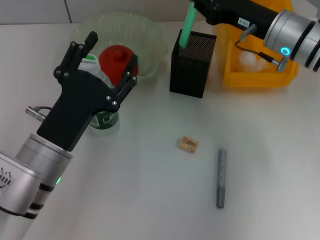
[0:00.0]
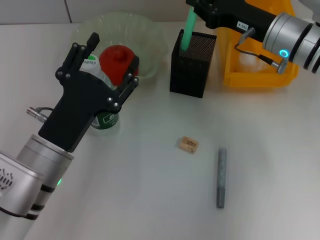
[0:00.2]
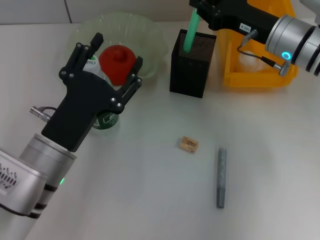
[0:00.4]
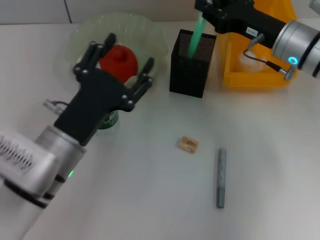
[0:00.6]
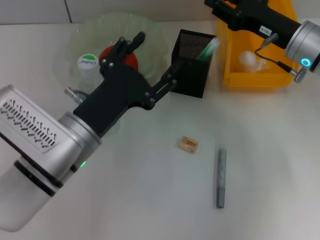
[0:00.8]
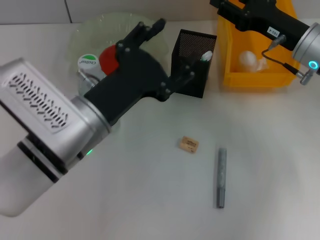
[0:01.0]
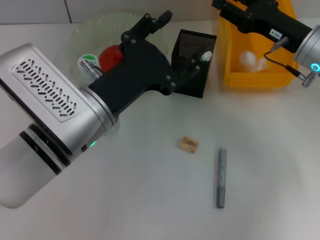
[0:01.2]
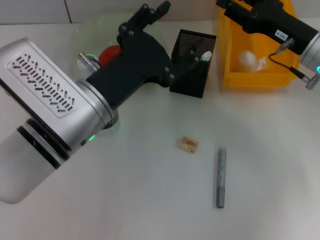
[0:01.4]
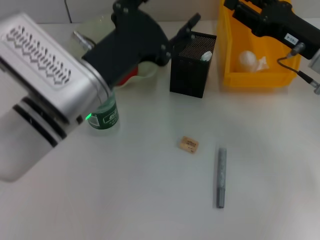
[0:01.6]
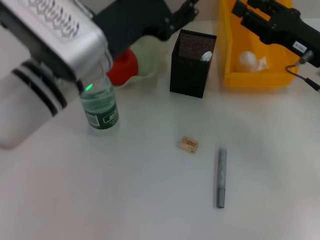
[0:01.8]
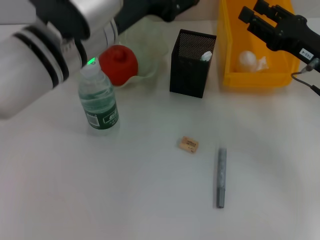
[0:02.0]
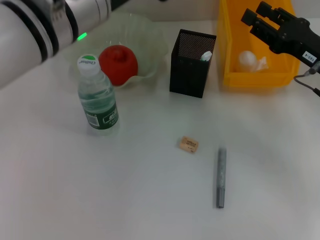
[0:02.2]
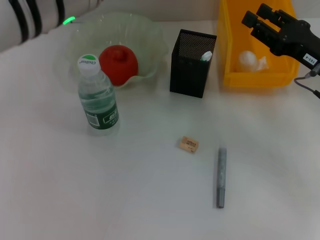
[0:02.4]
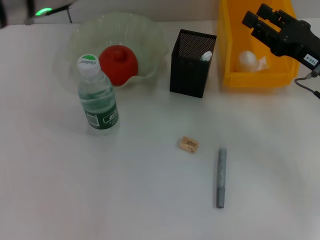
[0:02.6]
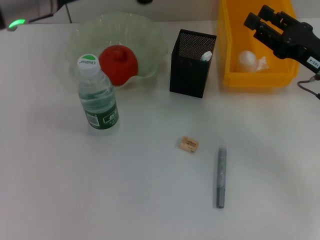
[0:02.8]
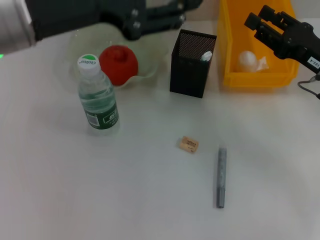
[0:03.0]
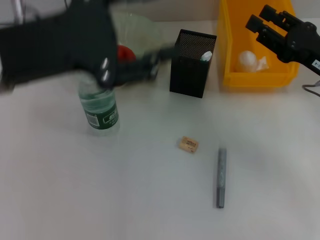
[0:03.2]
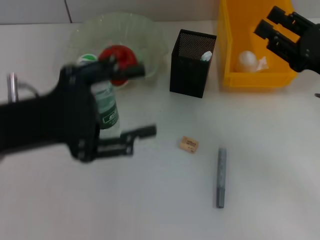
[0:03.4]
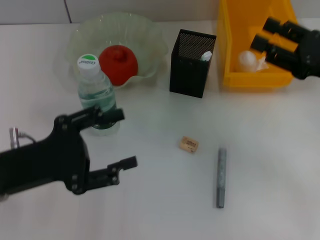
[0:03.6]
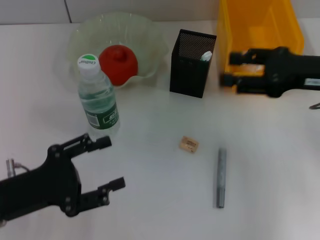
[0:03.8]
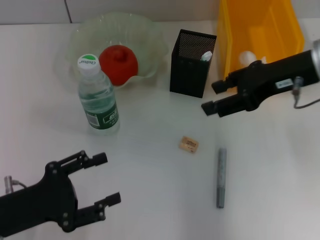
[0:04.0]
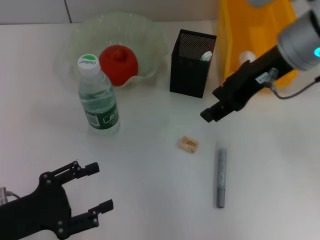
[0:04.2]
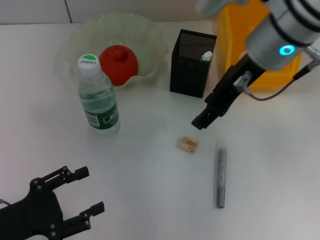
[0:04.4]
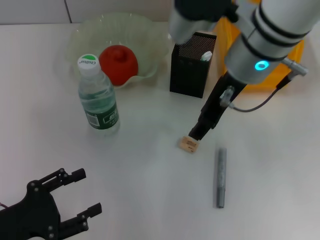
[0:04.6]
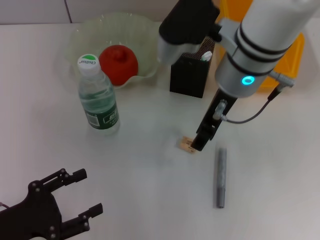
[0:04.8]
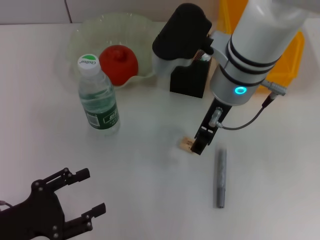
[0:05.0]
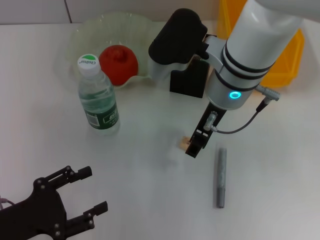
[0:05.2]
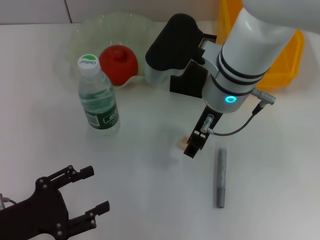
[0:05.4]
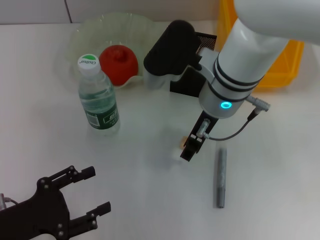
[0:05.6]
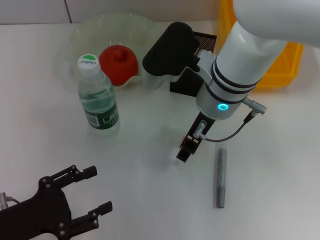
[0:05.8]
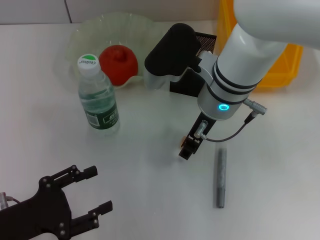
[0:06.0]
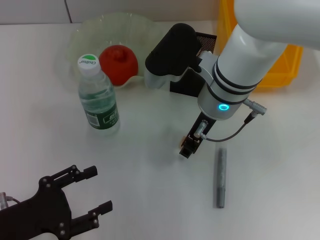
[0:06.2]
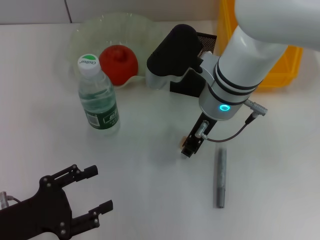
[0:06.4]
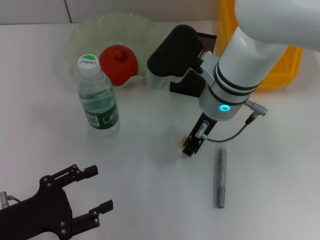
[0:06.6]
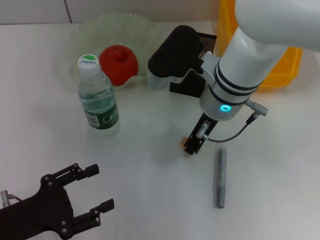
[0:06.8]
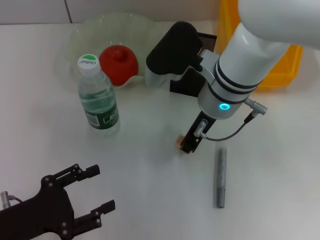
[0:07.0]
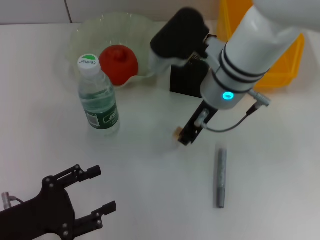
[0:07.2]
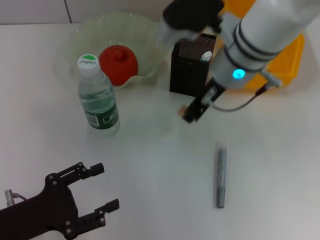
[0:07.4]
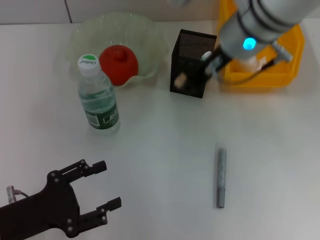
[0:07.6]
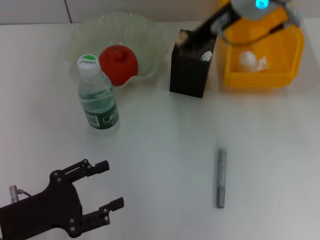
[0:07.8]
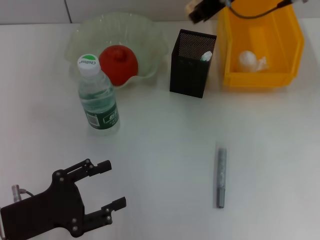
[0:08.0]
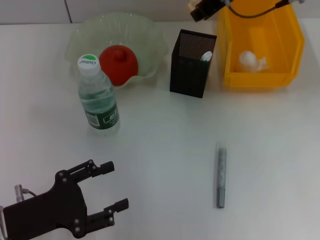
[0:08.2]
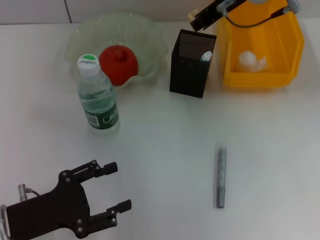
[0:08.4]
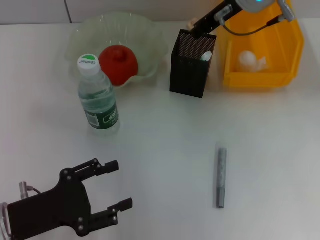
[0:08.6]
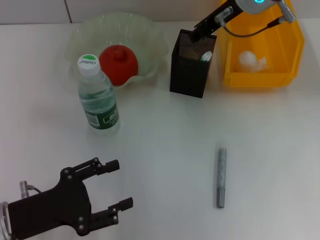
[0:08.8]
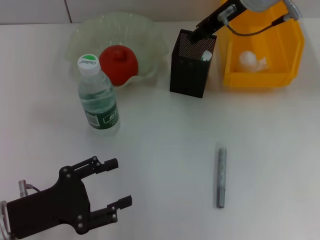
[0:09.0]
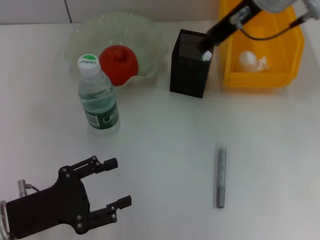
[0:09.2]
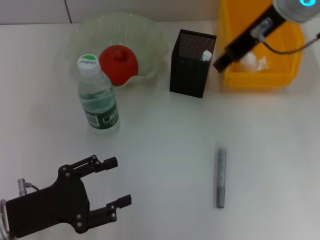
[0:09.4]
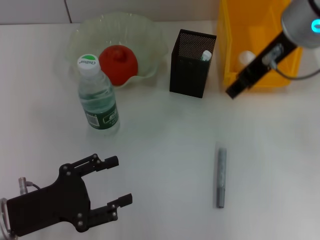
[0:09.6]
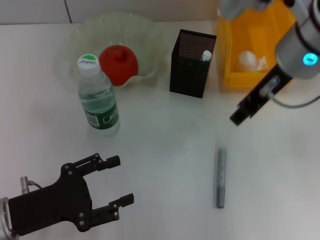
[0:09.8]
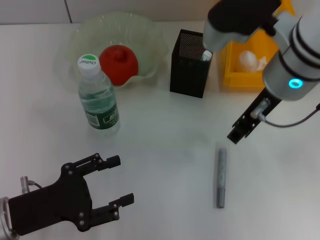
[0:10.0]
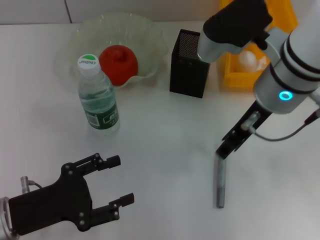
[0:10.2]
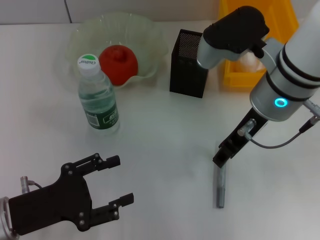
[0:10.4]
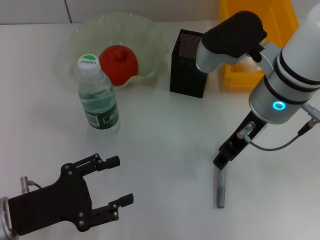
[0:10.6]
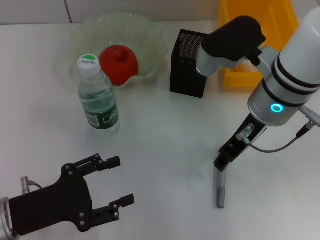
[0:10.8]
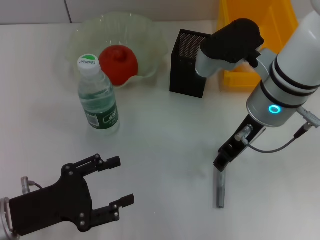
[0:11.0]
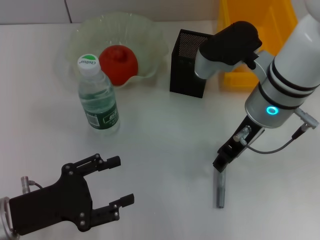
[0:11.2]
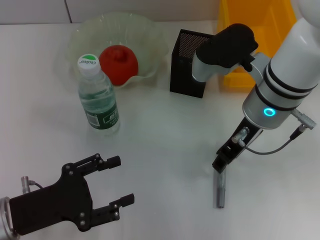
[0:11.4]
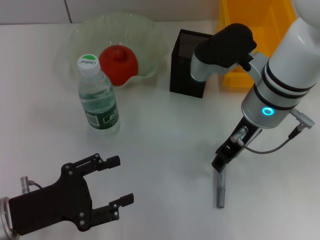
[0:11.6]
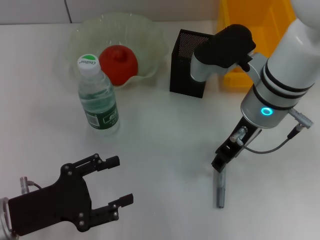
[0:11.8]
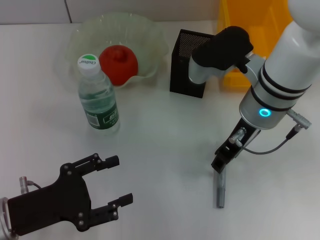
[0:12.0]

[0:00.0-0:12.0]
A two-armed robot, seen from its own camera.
Step, 0:01.0 to 0:06.6: Grab the eraser with the right hand.
Step, 0:07.0 to 0:08.6: Put the eraser into the pen holder with the right hand.
0:00.0 to 0:01.6: The right gripper goes about 5 cm to the right, and opens up, while the left gripper heads upward and forward, covering roughly 10 cm.
0:01.6 to 0:03.0: The left gripper moves upward and to the left, approximately 10 cm.
0:03.0 to 0:04.4: The right gripper heads to the left and upward, covering roughly 20 cm. The left gripper is displaced downward, backward and to the left by some 30 cm.
0:04.4 to 0:06.0: The right gripper is displaced downward by approximately 10 cm.
0:06.0 to 0:07.6: The right gripper shifts approximately 10 cm upward, and closes.
0:07.6 to 0:09.0: The right gripper shifts by about 5 cm.
0:09.0 to 0:10.4: The right gripper travels backward and downward by about 10 cm.
0:10.4 to 0:12.0: The grippers move only a little.

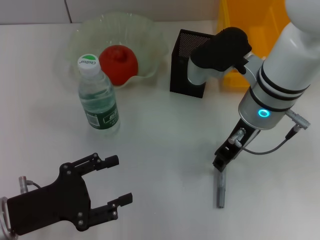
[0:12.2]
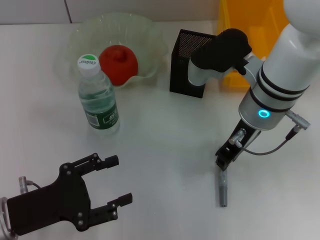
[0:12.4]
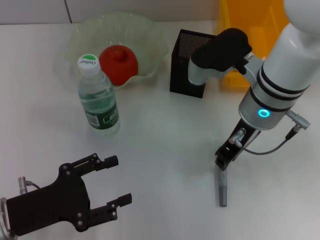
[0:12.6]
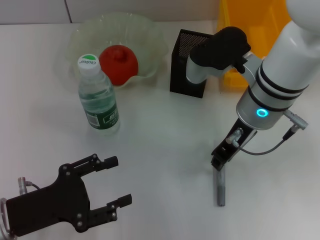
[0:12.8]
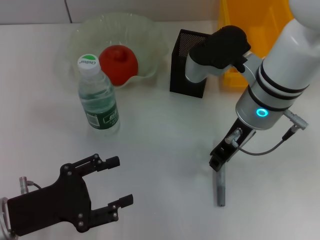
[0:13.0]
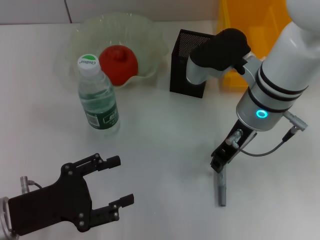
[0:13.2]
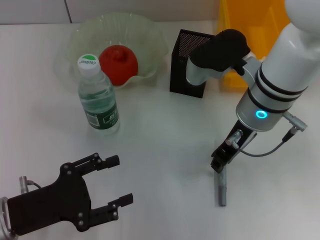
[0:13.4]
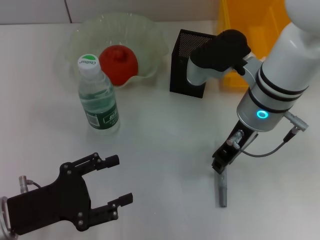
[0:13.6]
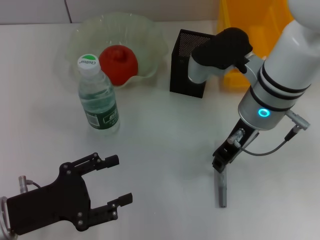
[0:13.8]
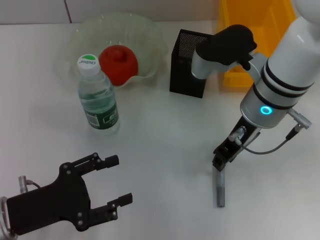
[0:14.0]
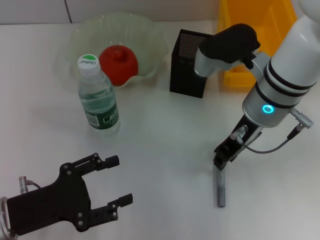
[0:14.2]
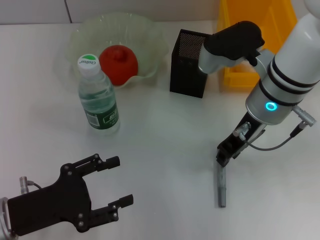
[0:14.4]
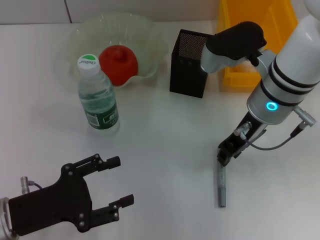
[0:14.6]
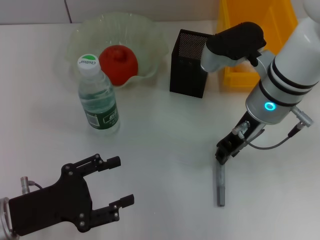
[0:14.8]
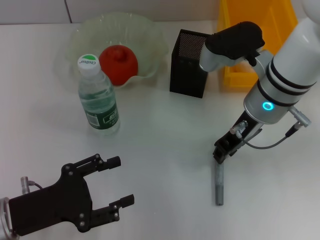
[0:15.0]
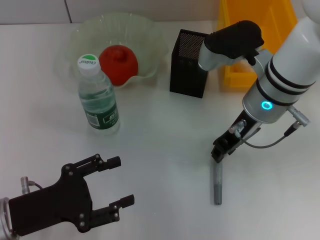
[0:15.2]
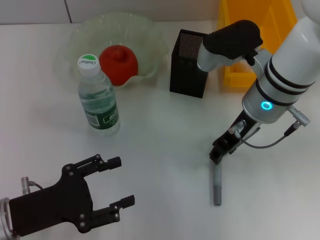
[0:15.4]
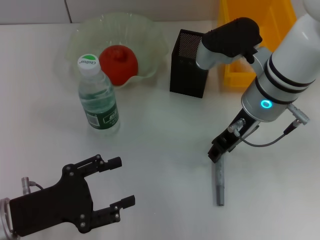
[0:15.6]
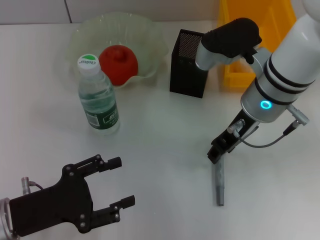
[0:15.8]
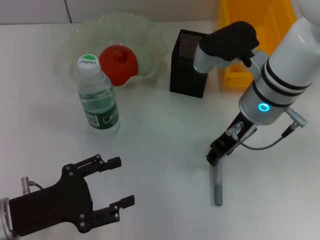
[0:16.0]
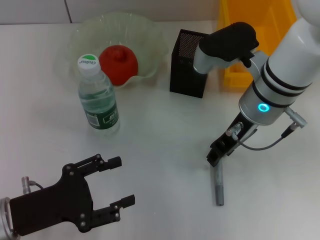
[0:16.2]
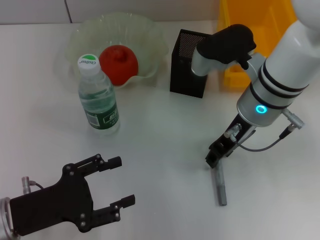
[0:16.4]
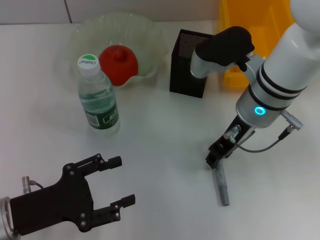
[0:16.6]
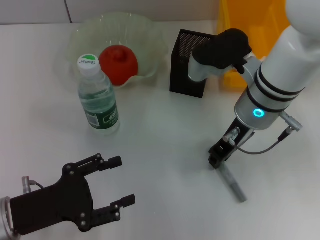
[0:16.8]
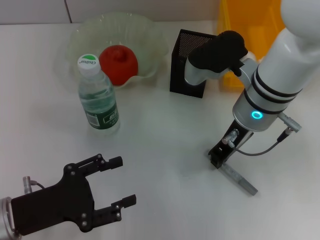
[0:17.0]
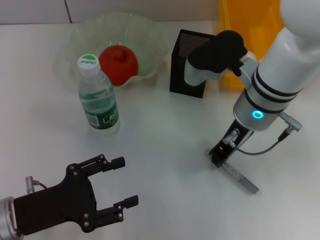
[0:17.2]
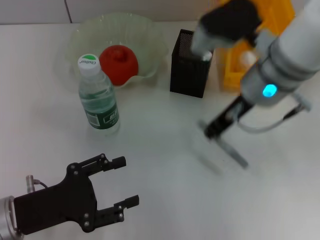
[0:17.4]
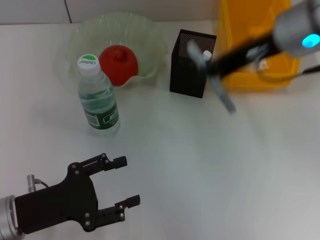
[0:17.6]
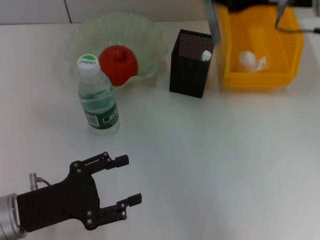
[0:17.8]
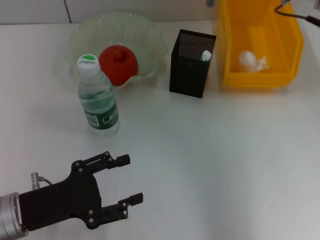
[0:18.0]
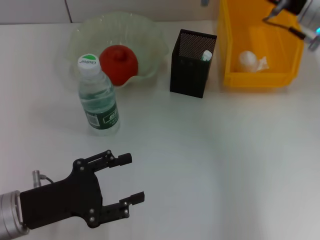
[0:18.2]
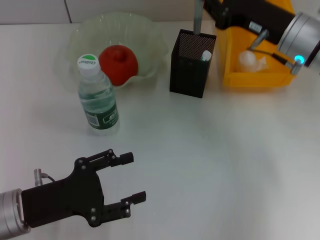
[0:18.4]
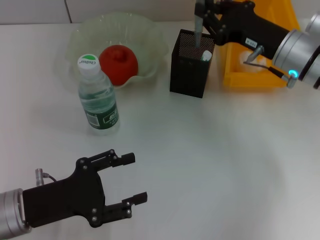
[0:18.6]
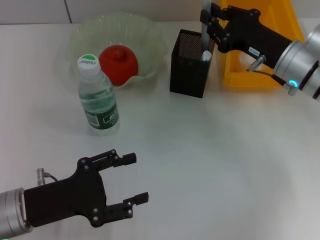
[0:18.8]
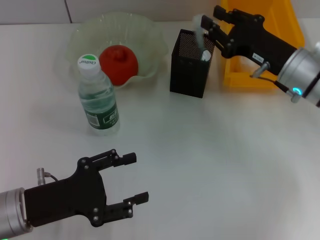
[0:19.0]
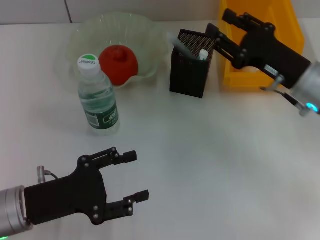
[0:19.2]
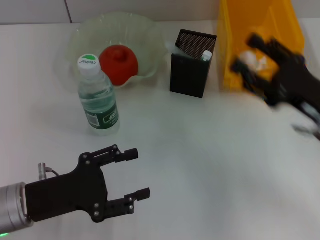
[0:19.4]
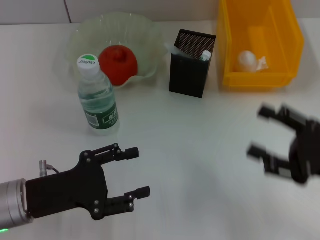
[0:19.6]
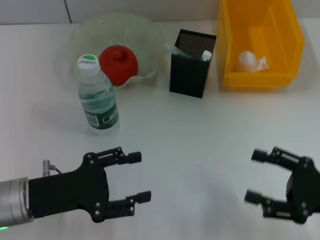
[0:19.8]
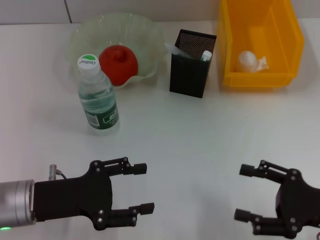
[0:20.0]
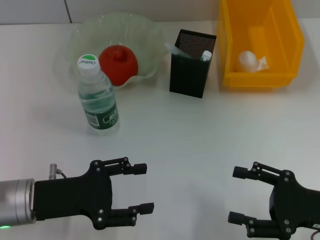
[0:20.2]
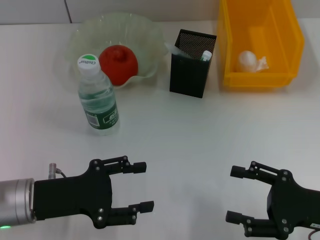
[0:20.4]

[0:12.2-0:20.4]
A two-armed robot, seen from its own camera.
Step, 0:12.2 to 0:17.0: Grab the gray glue with the right hand.
Step, 0:17.2 to 0:19.0: Place the gray glue into the pen holder with the right hand.
0:12.2 to 0:13.8: Both grippers stay about where they are.
0:13.8 to 0:15.4: The grippers make only small movements.
0:15.4 to 0:17.2: The right gripper closes.
0:17.2 to 0:18.8: The right gripper travels to the right by roughly 10 cm, and moves approximately 10 cm upward and comes back.
0:18.8 to 0:20.4: The right gripper heads backward, covering roughly 20 cm, and opens its fingers.

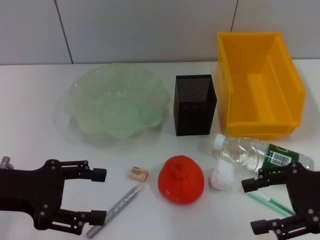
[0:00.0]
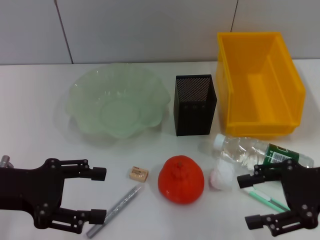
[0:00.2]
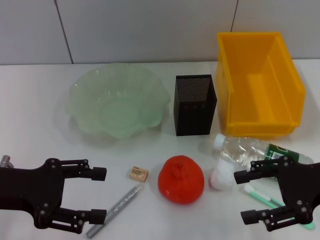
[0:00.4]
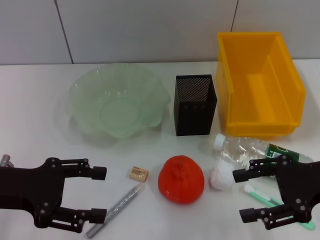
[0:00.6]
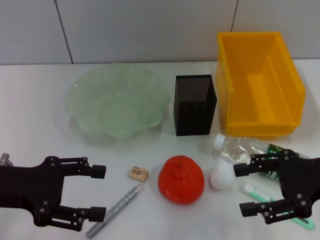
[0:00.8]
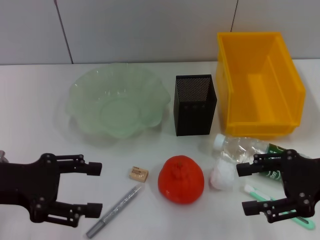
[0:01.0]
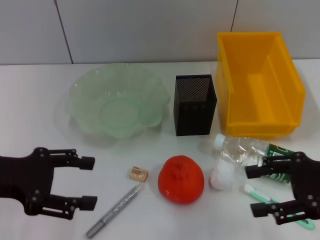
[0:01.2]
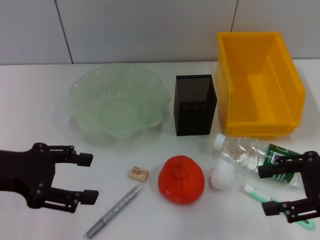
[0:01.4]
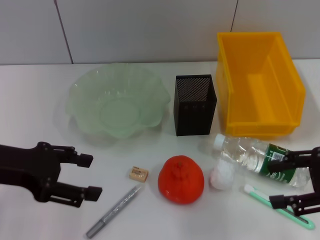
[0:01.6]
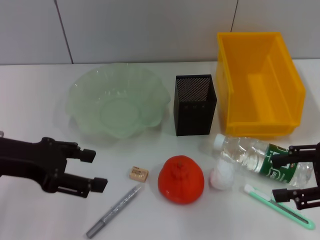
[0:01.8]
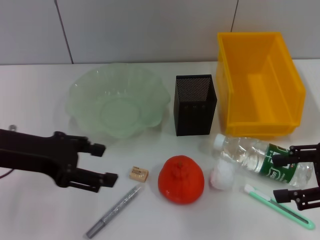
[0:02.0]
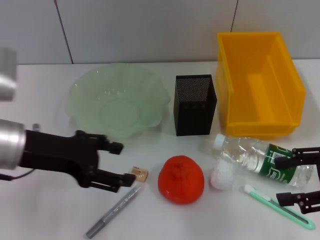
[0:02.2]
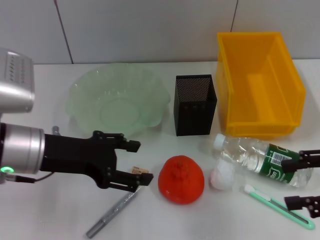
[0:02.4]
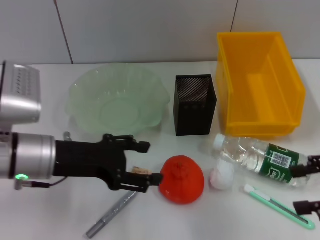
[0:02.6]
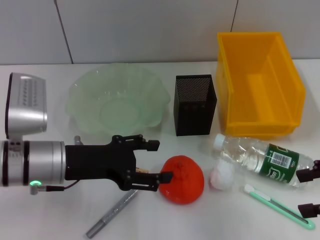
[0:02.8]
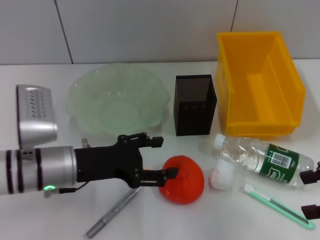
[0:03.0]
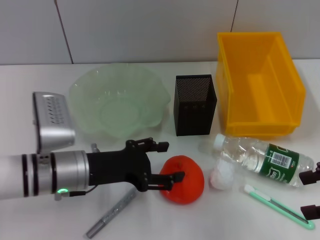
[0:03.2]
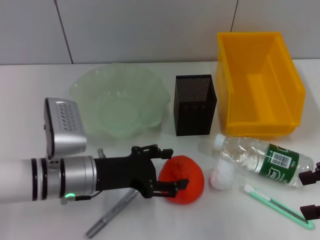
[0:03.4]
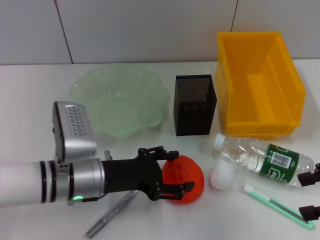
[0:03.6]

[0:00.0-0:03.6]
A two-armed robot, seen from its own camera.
0:00.0 to 0:01.8: The left gripper ends up about 5 cm from where it was.
0:01.8 to 0:03.6: The left gripper travels downward and to the right by about 15 cm.
